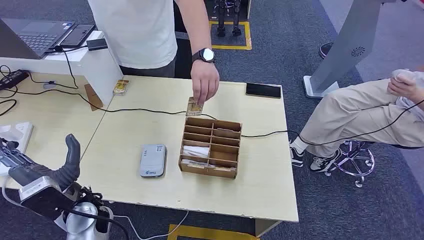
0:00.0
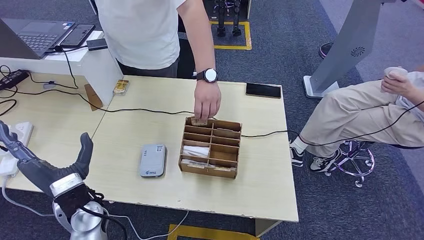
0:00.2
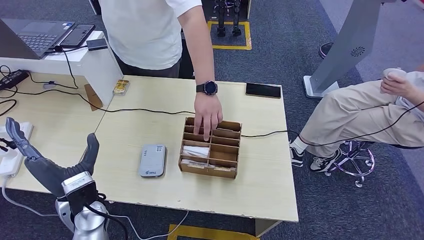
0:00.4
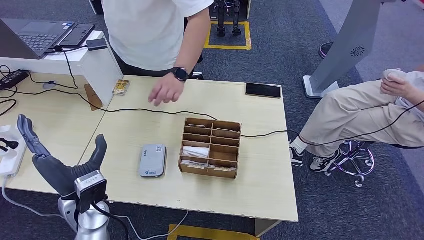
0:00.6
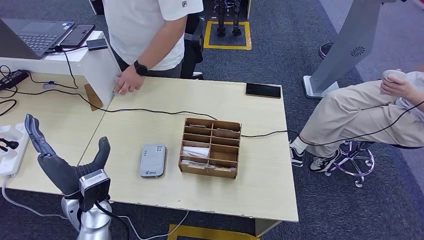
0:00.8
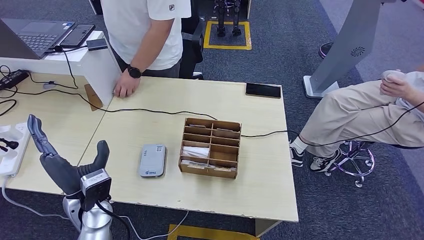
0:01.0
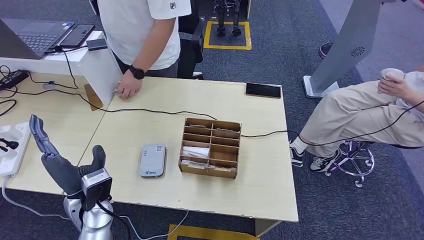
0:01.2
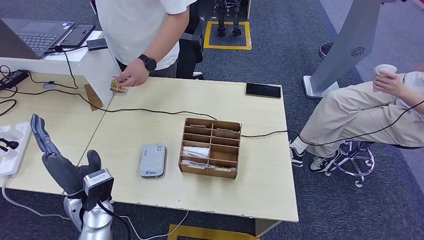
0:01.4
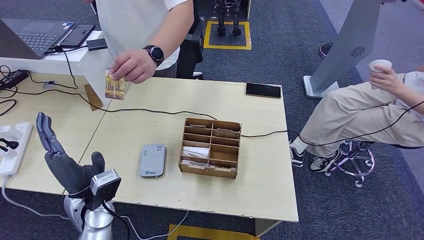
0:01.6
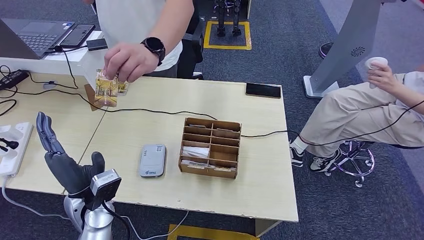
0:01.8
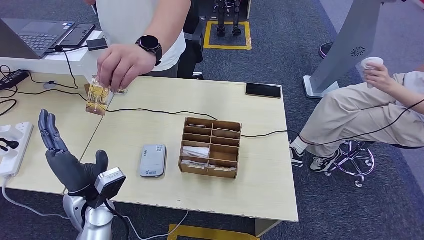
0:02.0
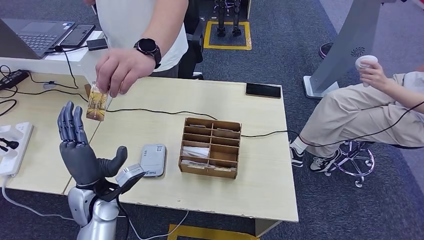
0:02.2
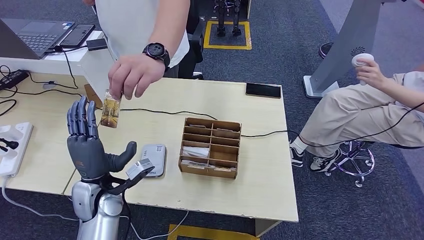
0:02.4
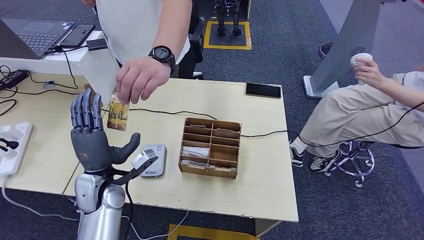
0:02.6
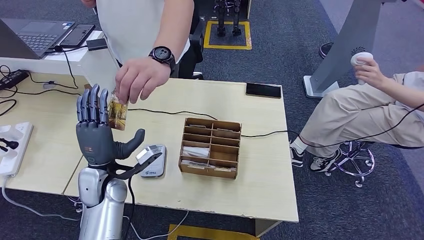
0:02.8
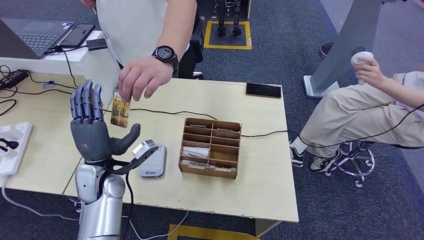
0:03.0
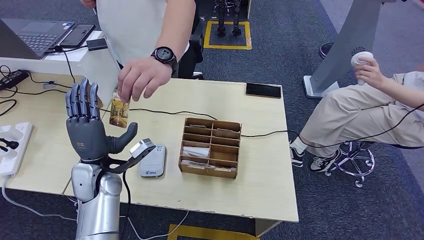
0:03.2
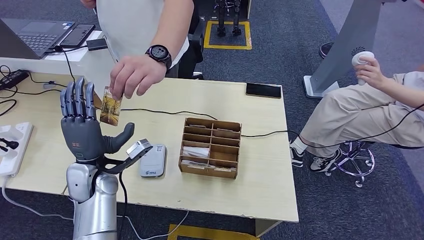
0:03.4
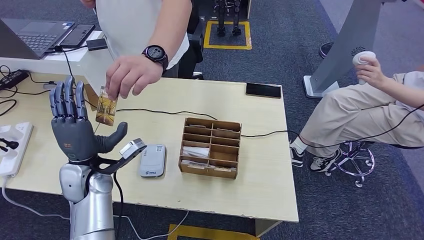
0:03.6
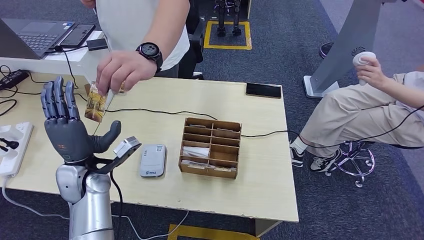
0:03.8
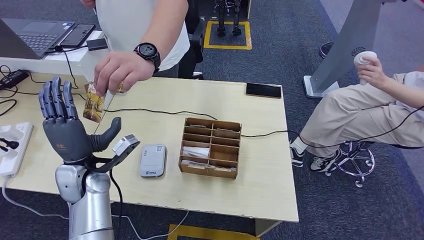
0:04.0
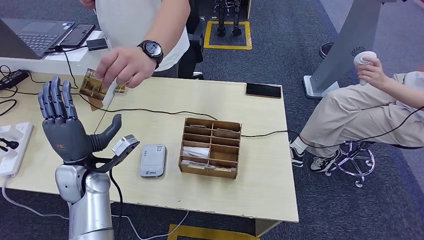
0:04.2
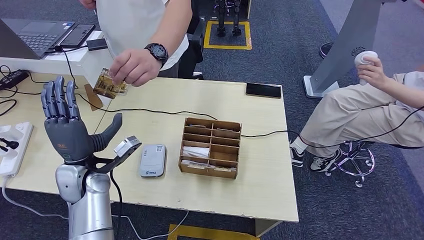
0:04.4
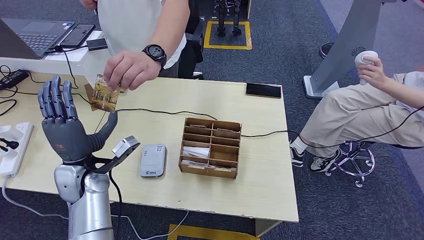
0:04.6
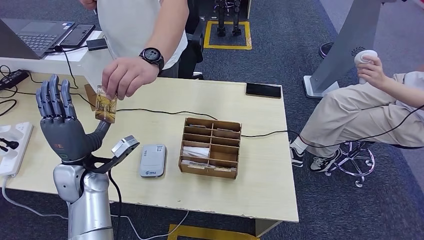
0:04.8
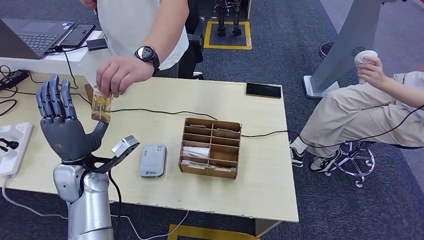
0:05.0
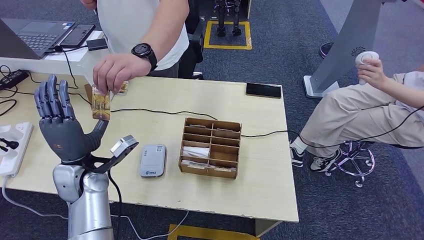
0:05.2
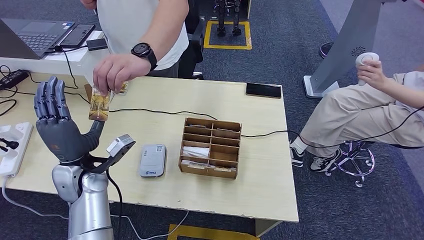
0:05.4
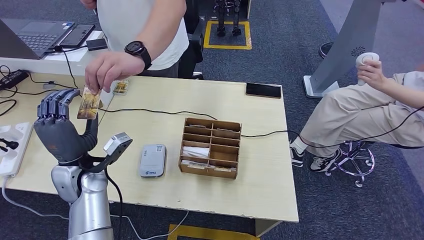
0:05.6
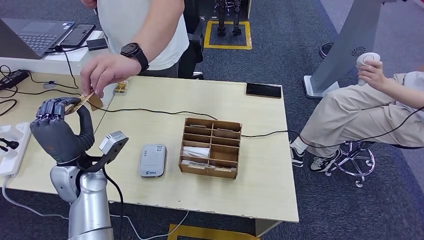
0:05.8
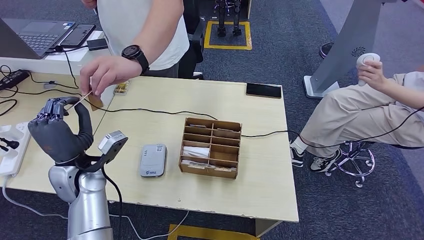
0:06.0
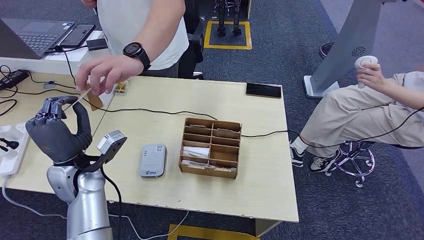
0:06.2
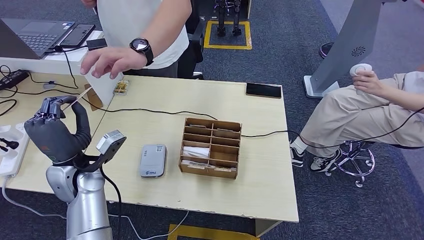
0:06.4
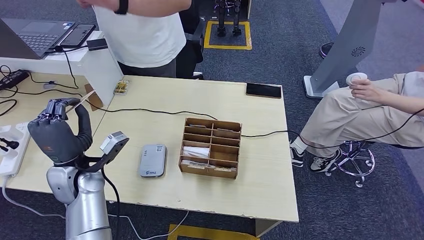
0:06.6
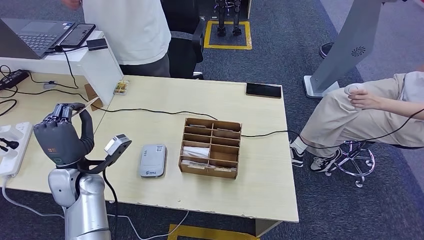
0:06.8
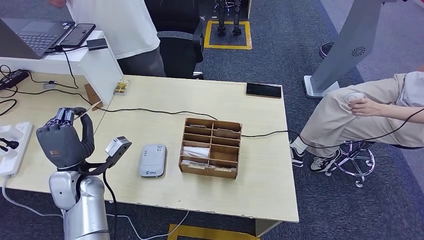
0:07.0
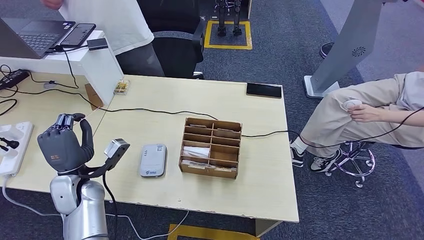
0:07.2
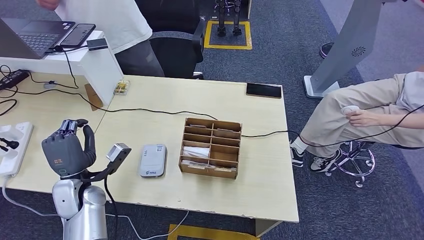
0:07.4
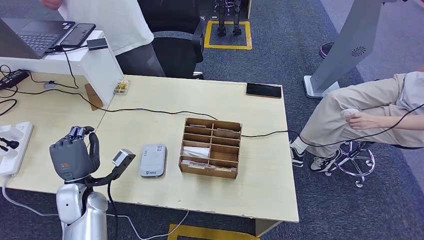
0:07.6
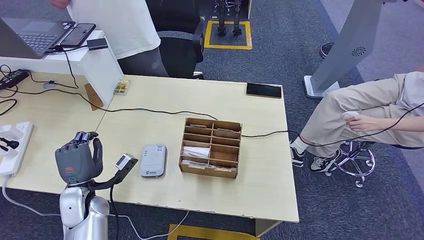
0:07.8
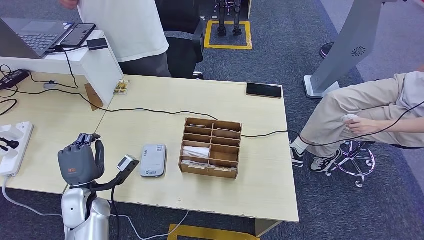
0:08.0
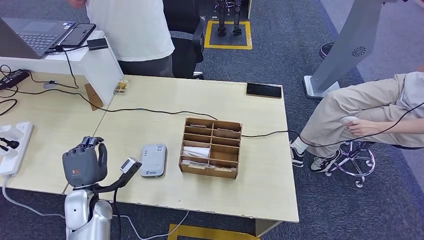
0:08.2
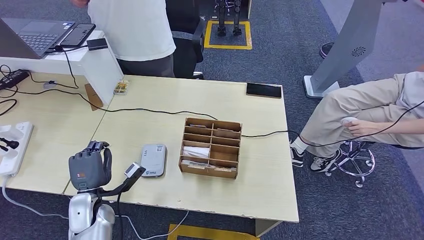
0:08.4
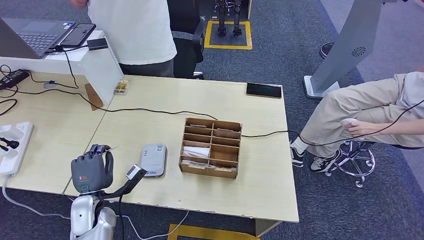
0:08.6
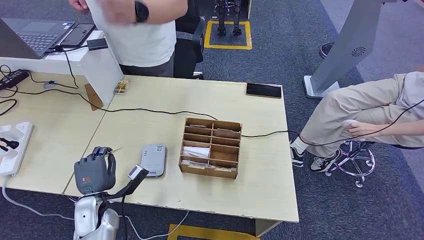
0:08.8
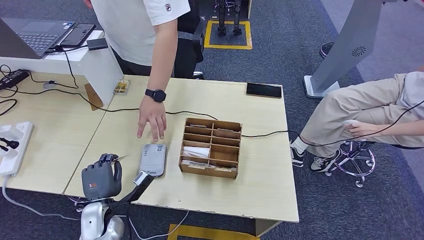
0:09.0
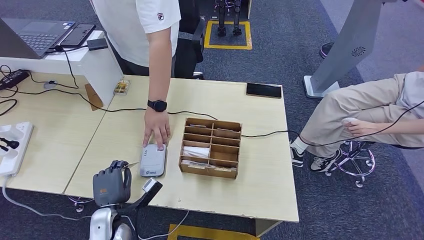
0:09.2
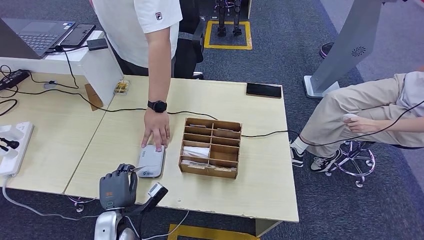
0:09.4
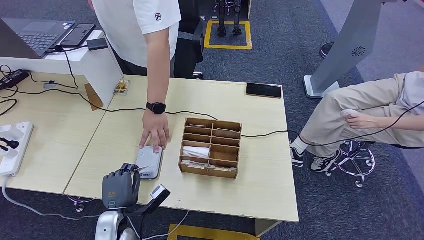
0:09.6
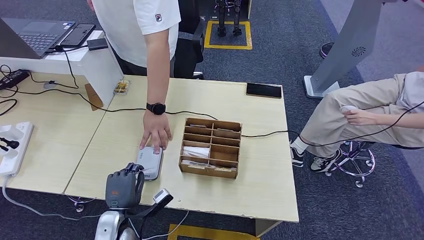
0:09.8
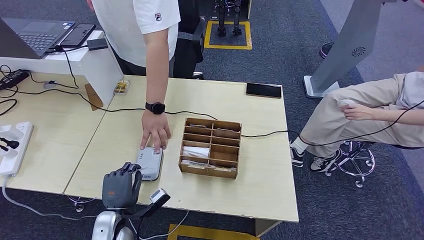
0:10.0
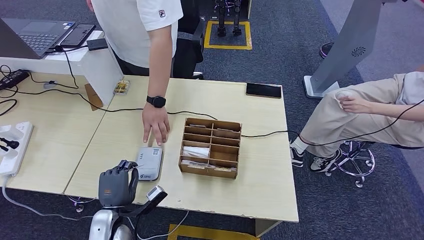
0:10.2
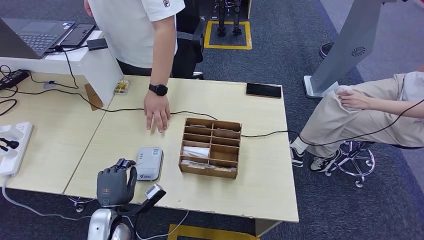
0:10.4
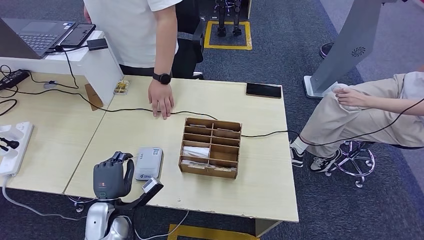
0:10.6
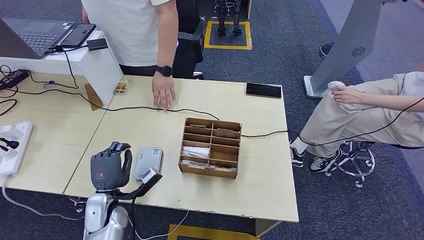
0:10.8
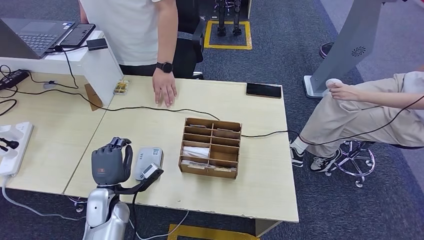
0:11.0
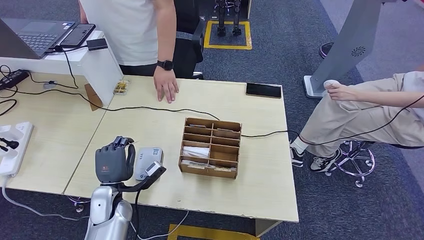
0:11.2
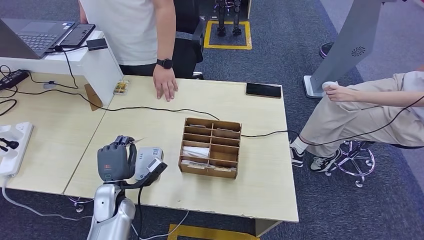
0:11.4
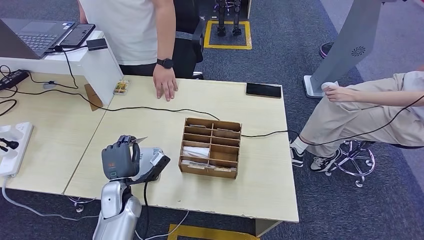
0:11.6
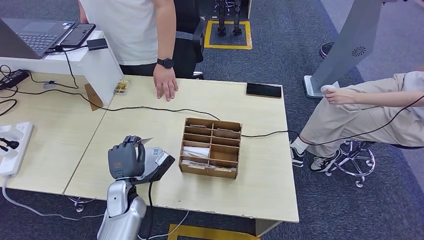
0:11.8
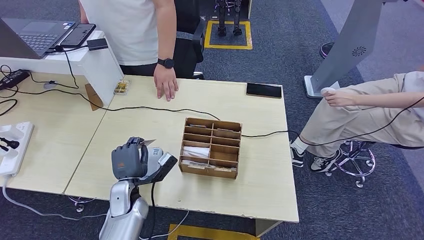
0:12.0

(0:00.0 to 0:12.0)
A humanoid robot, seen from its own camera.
Step, 0:00.0 - 0:05.6: Take the ID card from the person's hand.
0:01.6 - 0:03.0: The left hand shifts approximately 5 cm forward.
0:03.0 - 0:06.0: The hands make only small movements.
0:06.0 - 0:07.6: The left hand shifts approximately 10 cm downward.
0:07.6 - 0:09.0: The left hand travels downward by roughly 5 cm.
0:09.0 - 0:10.4: The hands make only small movements.
0:10.4 - 0:12.0: The left hand travels forward by approximately 5 cm.

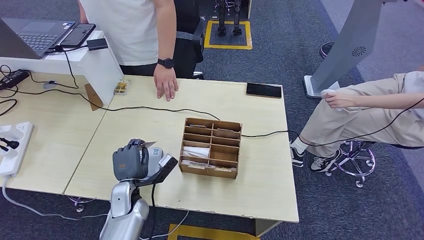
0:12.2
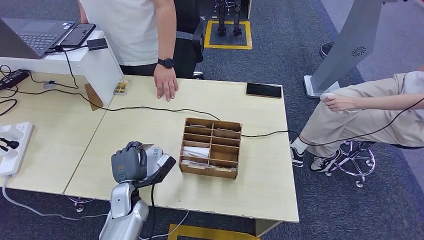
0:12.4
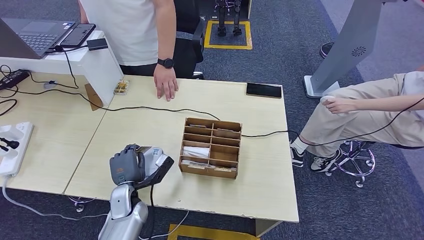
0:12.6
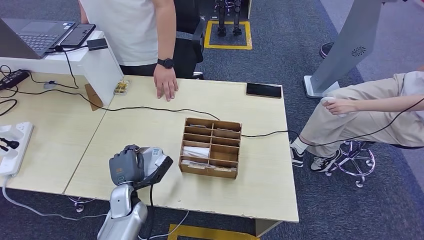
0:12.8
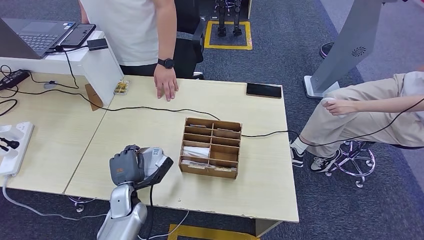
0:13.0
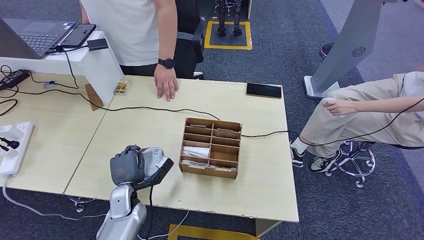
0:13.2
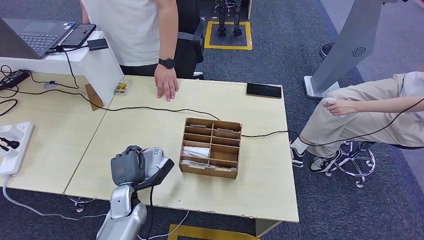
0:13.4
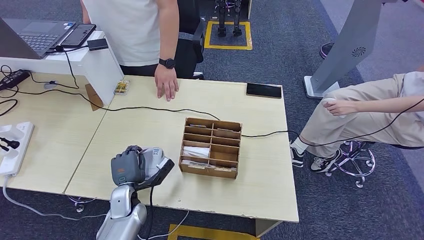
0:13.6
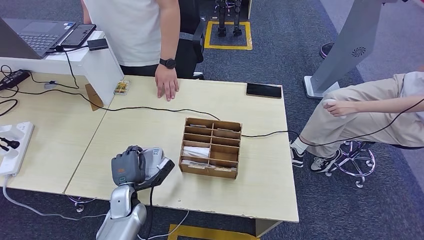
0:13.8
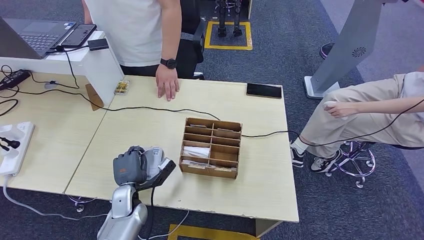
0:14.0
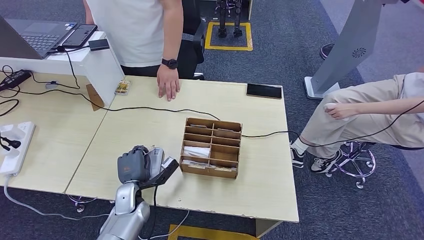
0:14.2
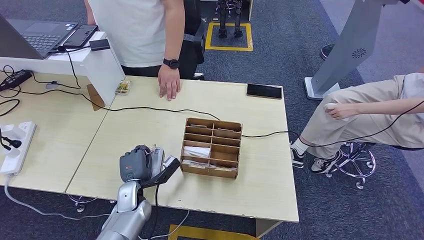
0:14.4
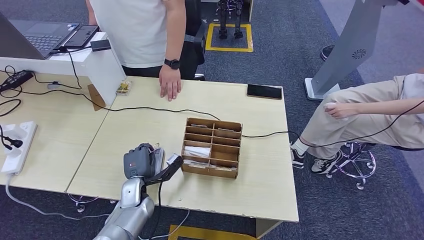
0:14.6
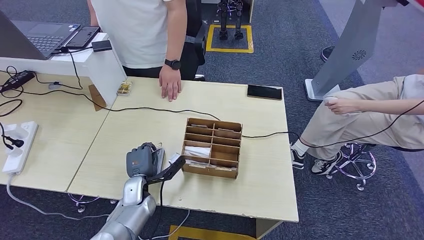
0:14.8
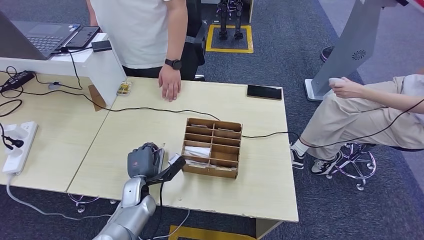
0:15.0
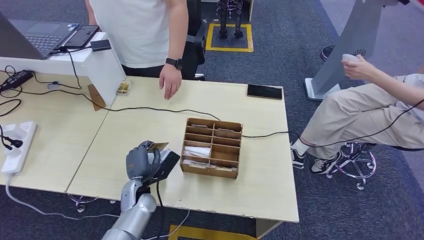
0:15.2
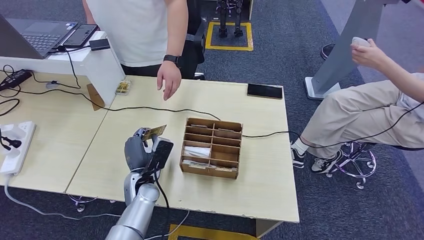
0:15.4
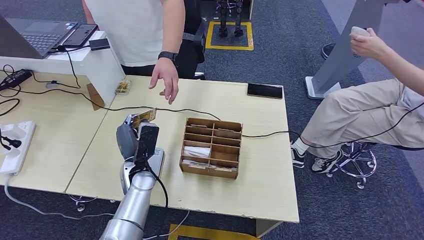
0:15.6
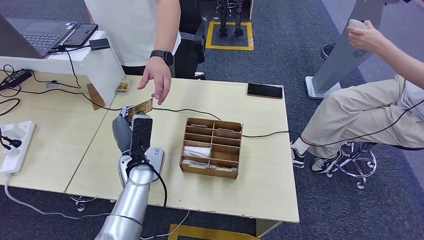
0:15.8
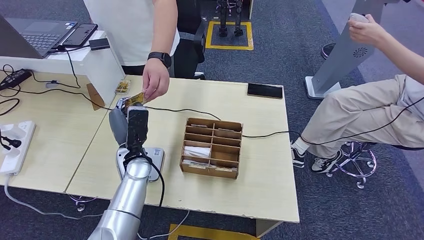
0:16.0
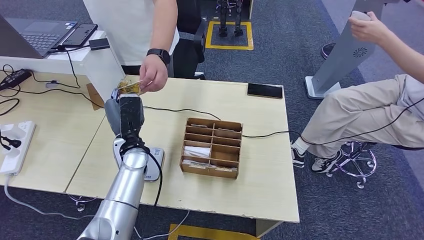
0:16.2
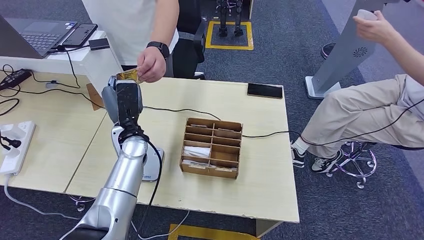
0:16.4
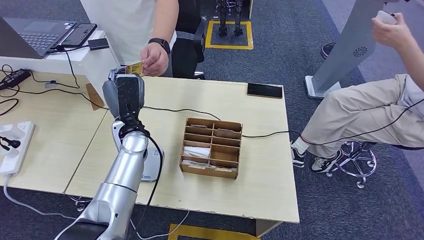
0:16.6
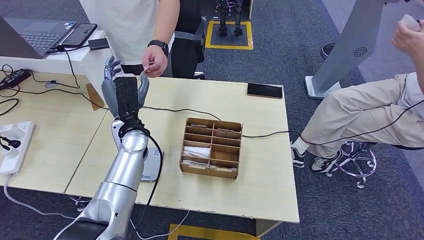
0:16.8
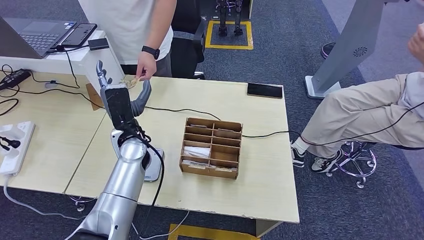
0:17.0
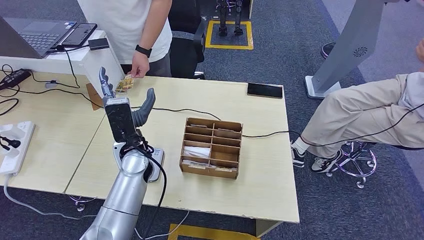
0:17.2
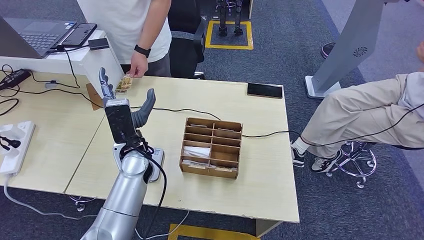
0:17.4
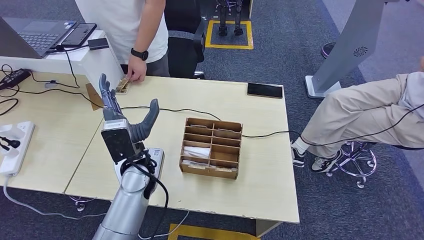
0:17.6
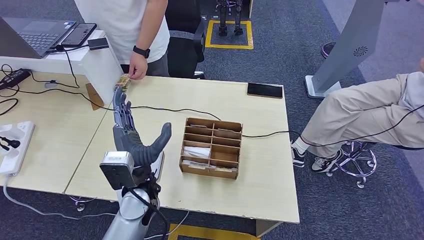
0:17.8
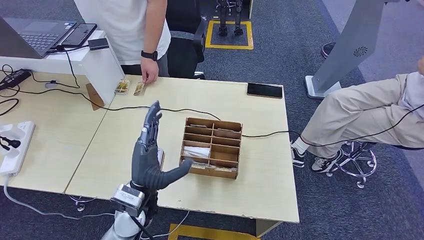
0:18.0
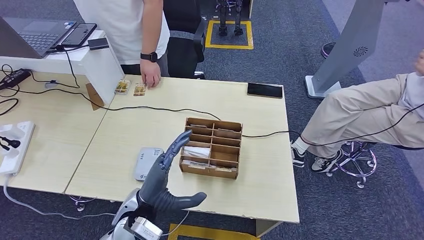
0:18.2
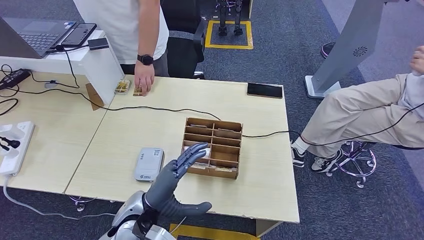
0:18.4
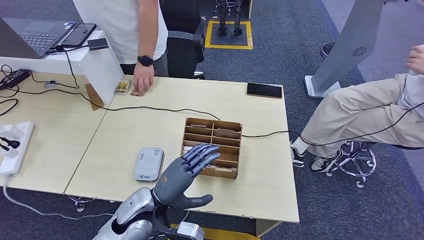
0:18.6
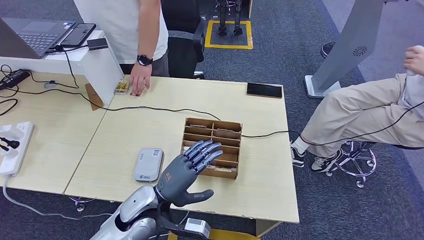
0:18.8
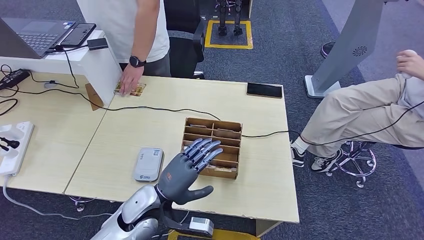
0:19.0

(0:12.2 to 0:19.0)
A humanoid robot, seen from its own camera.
Step, 0:12.2 - 0:14.2: Place the ID card on the card reader.
Step, 0:14.4 - 0:16.6: Hand the ID card to the person.
0:12.2 - 0:15.0: The hands stay close to where they were, moving slightly.
0:16.2 - 0:17.6: There are only small adjustments of the hands.
0:17.6 - 0:19.0: The left hand goes roughly 15 cm backward and downward.
